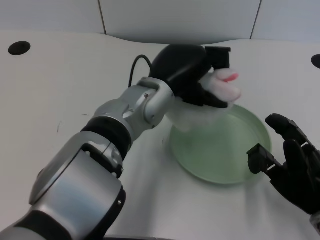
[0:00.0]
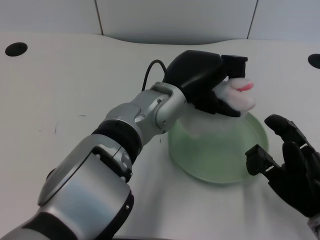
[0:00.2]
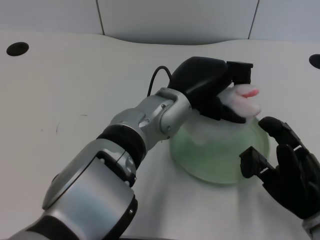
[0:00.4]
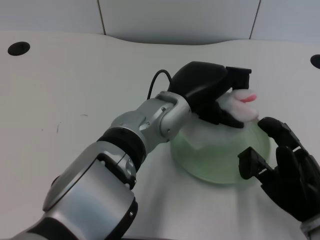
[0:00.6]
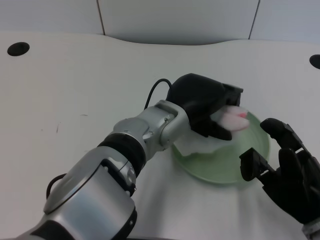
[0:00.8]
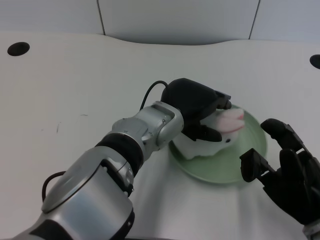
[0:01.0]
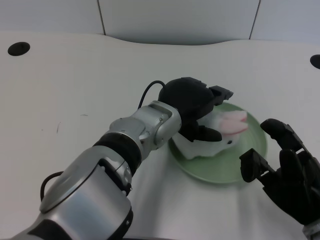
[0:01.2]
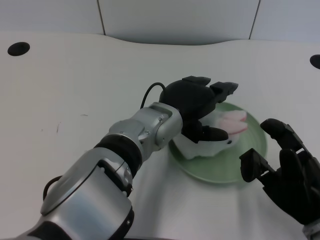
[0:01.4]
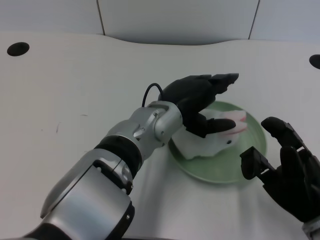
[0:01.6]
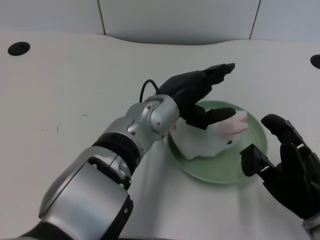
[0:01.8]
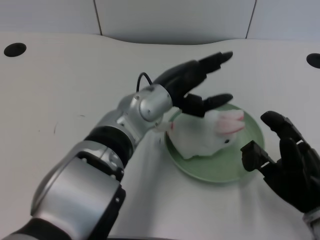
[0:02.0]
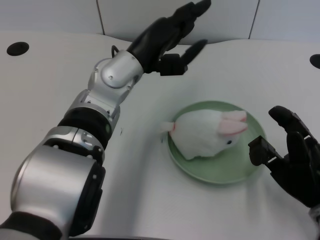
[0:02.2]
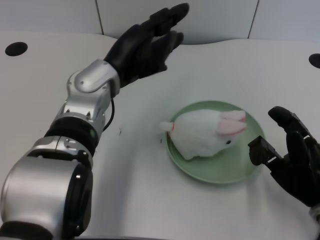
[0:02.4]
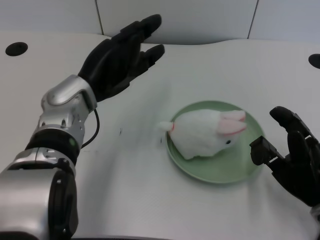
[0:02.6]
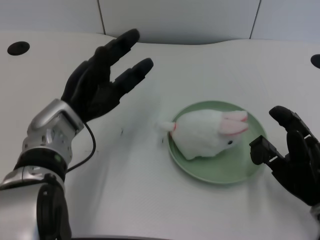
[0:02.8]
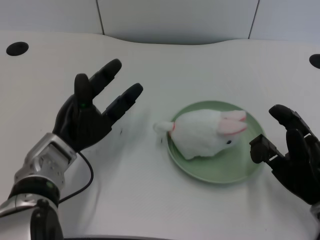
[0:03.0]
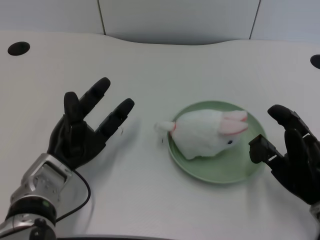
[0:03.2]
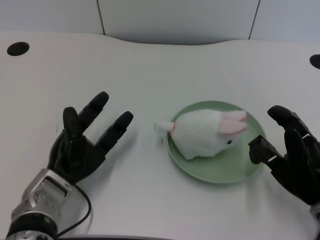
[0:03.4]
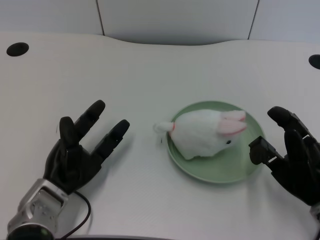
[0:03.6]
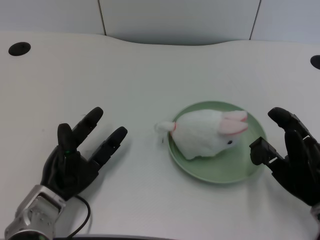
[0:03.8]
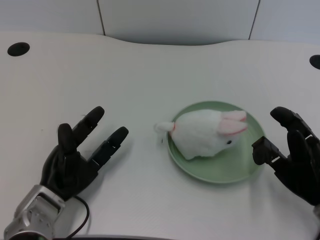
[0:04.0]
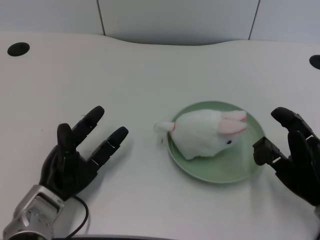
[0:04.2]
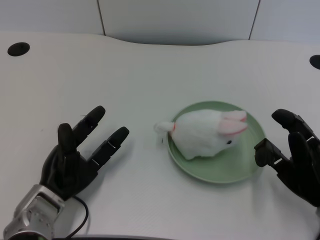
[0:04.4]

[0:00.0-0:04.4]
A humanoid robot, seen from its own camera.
Task of the whole recording: pick up the rabbit doll from the table and place it on the plate.
Step, 0:00.0 to 0:01.4: Place the rabbit doll into the plate with the left gripper.
0:01.4 to 0:03.0: The left hand heads to the left, covering approximately 15 cm.
0:03.0 to 0:04.4: The left hand travels backward and downward by some 10 cm.

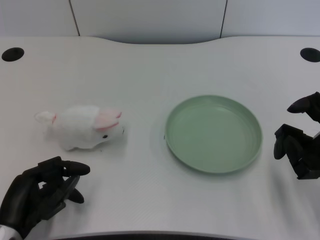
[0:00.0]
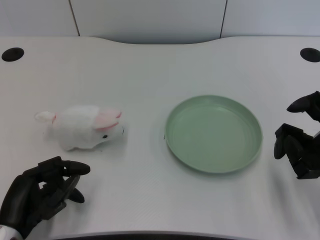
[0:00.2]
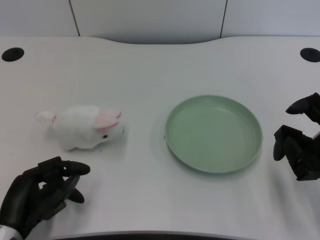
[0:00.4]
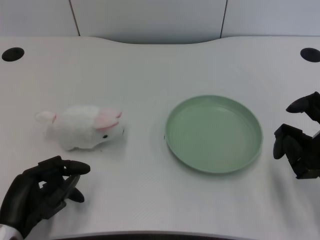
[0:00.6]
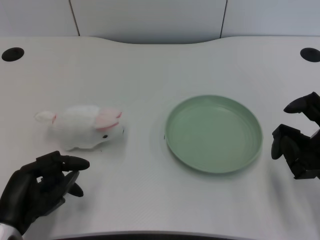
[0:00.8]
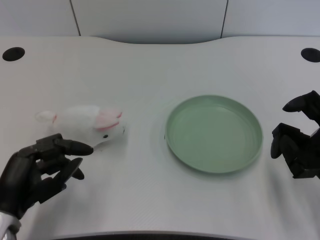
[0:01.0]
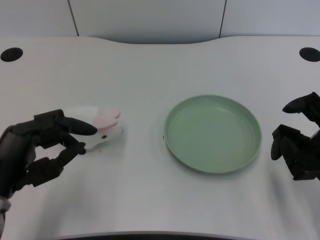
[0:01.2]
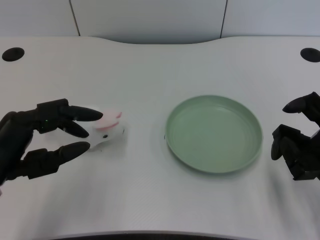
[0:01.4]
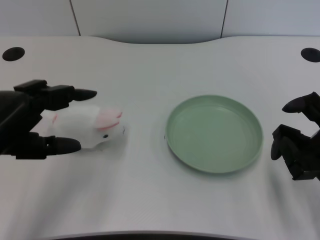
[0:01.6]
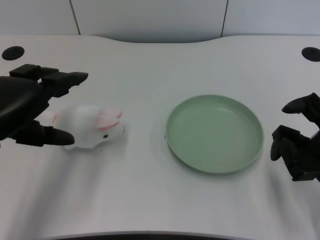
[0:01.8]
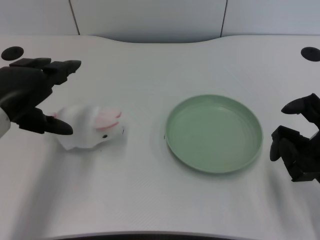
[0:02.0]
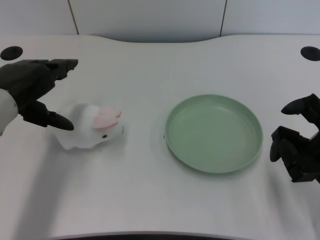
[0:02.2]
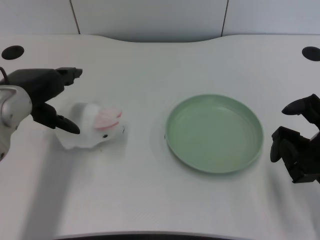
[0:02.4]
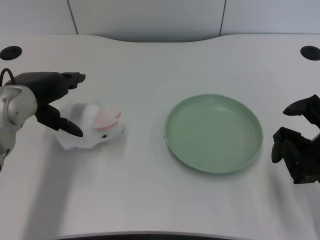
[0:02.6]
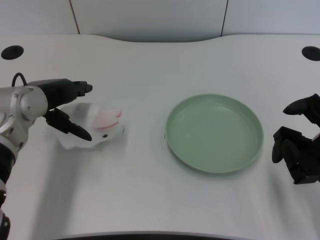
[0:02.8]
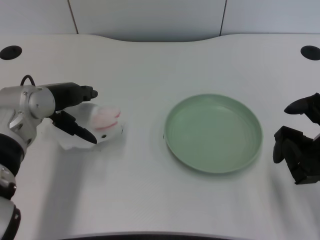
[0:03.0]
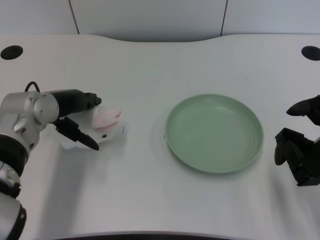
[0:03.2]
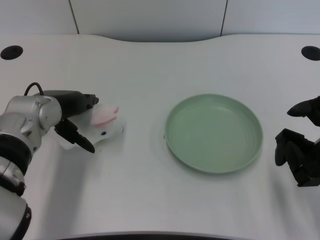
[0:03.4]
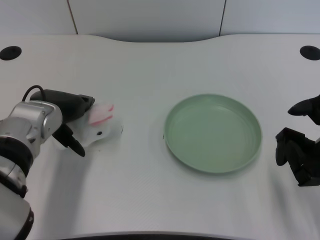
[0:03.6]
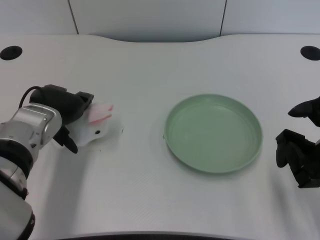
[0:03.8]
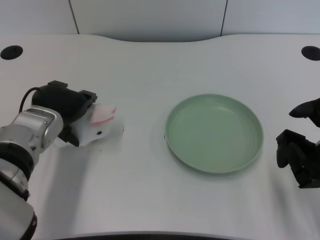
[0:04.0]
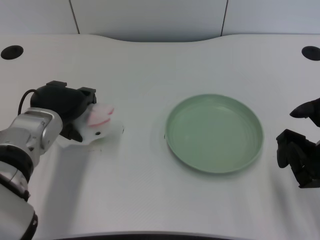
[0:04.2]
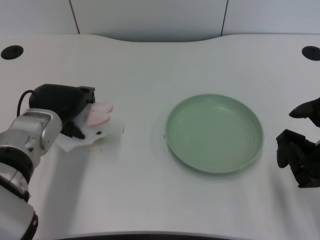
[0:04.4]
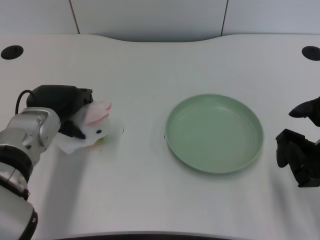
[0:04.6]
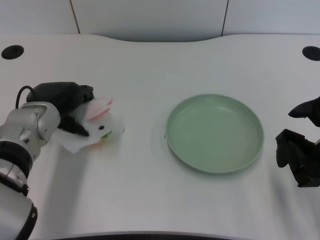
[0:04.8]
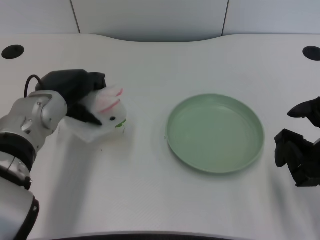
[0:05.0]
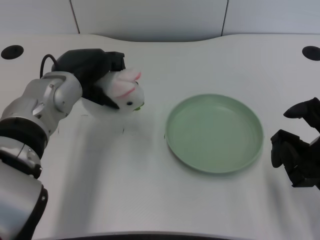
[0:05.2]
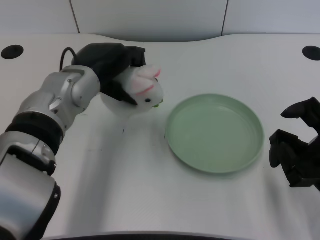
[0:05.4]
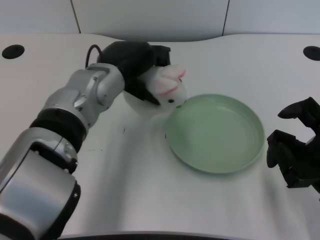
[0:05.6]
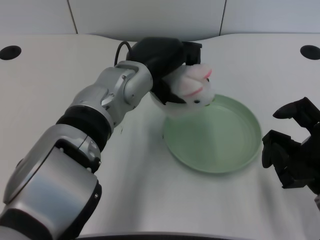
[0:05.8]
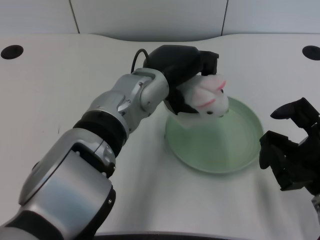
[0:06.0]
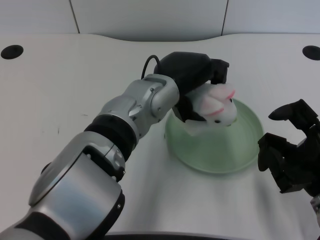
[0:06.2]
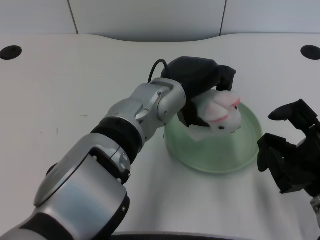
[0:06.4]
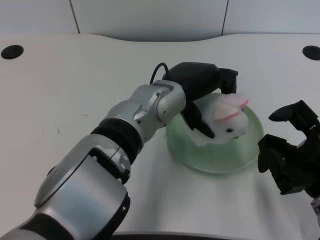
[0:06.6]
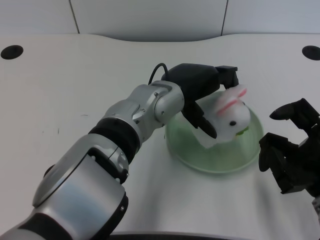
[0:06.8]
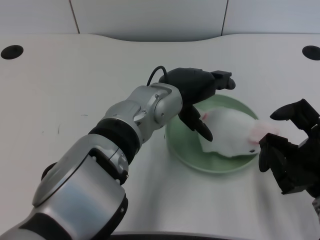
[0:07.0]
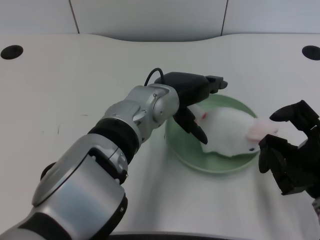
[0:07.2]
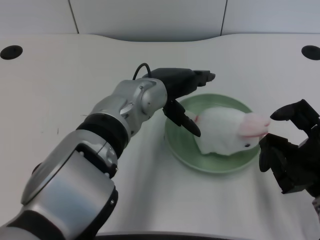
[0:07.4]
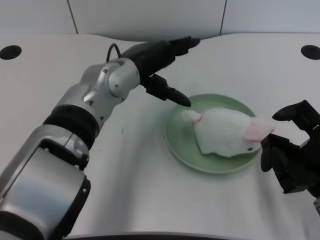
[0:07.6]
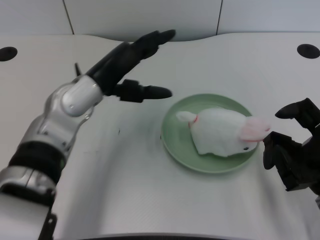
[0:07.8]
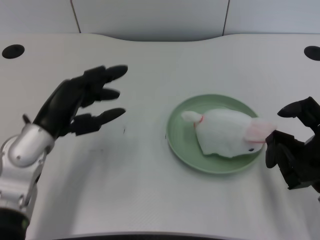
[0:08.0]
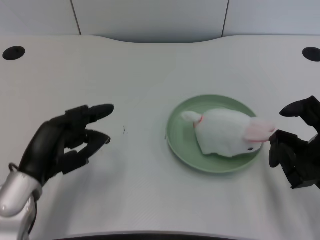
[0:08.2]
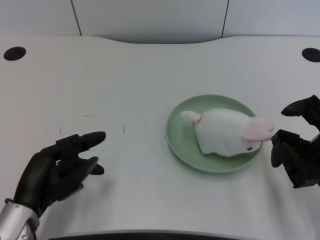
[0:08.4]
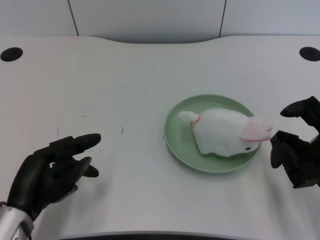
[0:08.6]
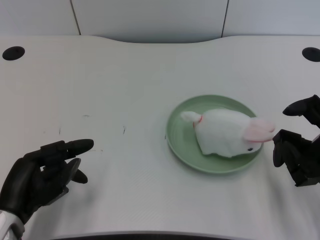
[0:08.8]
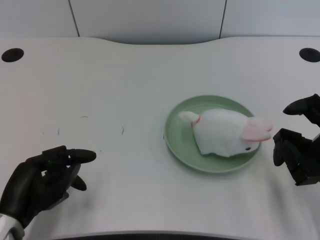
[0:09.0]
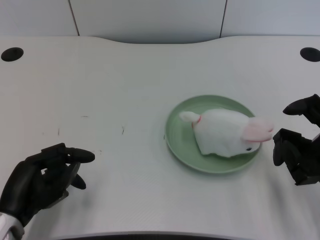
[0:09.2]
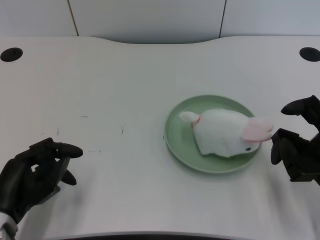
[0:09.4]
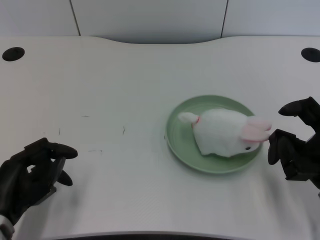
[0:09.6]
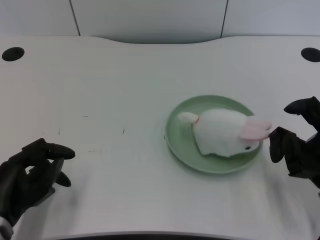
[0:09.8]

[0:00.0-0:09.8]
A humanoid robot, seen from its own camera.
Task of the whole recording: pick up the rabbit doll from the table and place it on the plate.
Step, 0:01.0 to 0:05.0: Grasp the rabbit doll with the left gripper.
Step, 0:05.2 to 0:07.0: Place the rabbit doll into the plate with the left gripper.
0:01.4 to 0:02.8: The left hand is displaced forward by some 15 cm.
0:02.8 to 0:04.2: The left hand moves downward, approximately 5 cm.
0:04.2 to 0:05.6: The left hand goes some 10 cm to the right and upward.
0:05.6 to 0:07.0: The left hand moves to the right, approximately 10 cm.
0:07.0 to 0:08.4: The left hand goes approximately 25 cm to the left, backward and downward.
0:08.4 to 0:09.8: The hands stay close to where they were, moving slightly.

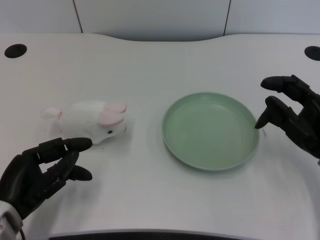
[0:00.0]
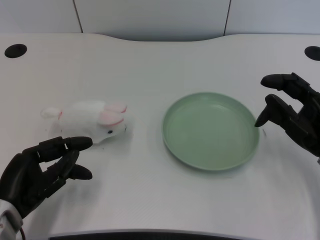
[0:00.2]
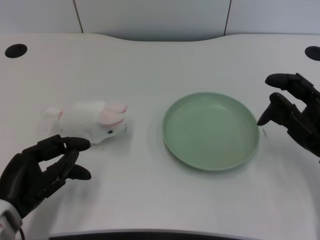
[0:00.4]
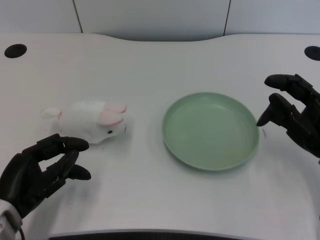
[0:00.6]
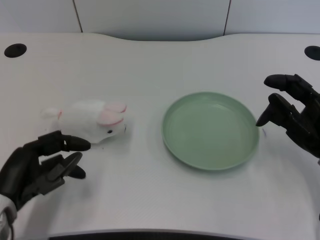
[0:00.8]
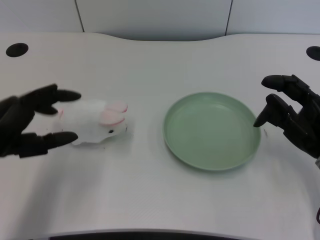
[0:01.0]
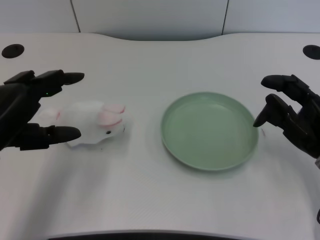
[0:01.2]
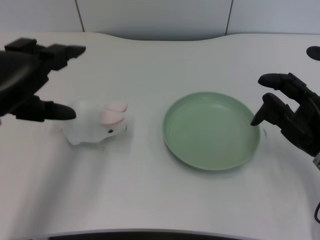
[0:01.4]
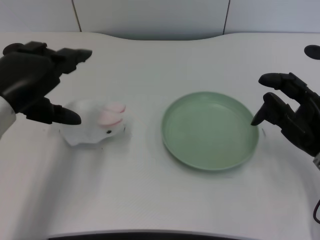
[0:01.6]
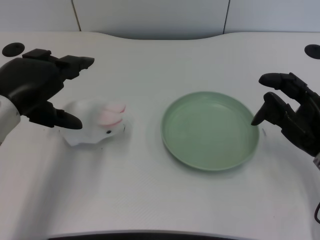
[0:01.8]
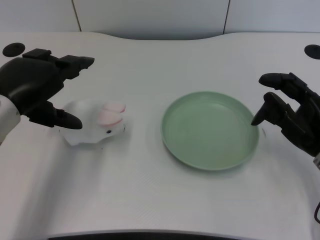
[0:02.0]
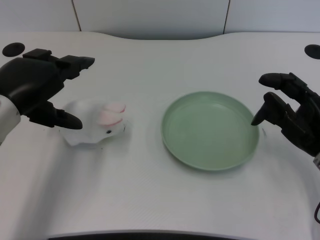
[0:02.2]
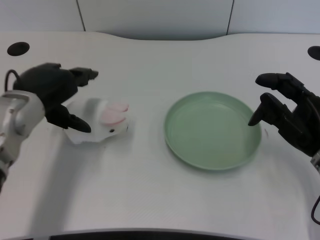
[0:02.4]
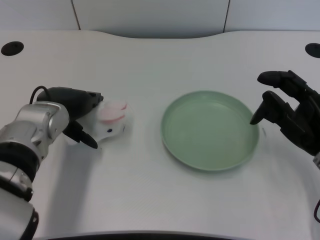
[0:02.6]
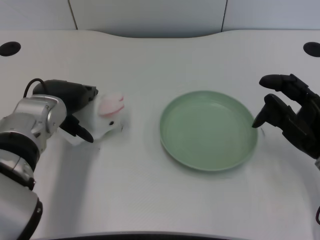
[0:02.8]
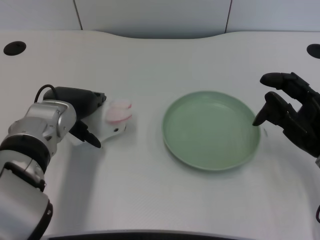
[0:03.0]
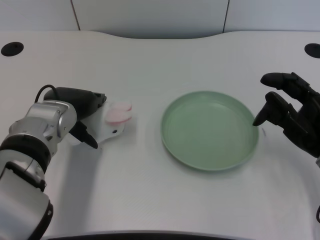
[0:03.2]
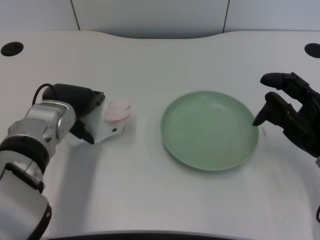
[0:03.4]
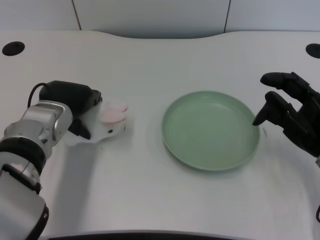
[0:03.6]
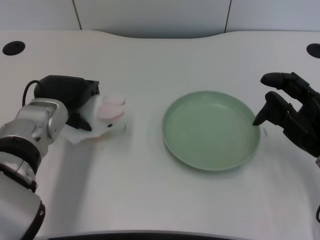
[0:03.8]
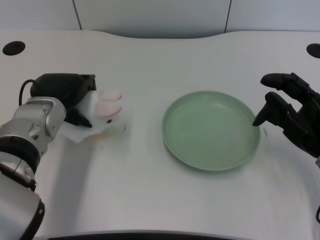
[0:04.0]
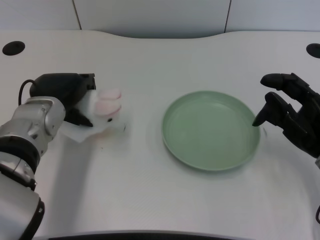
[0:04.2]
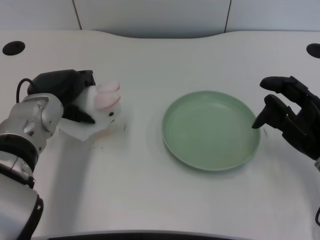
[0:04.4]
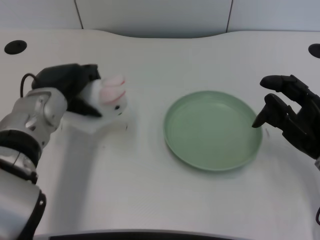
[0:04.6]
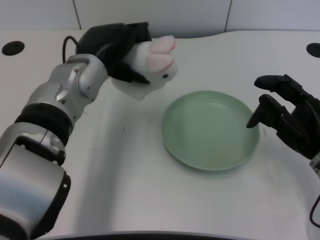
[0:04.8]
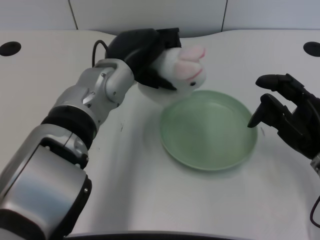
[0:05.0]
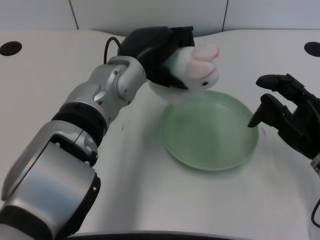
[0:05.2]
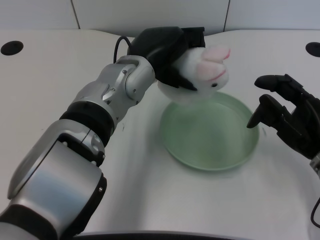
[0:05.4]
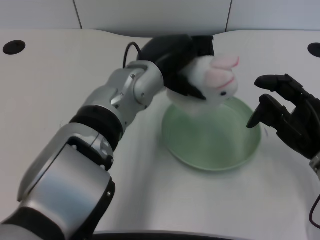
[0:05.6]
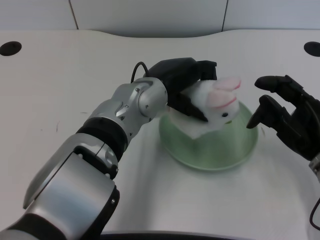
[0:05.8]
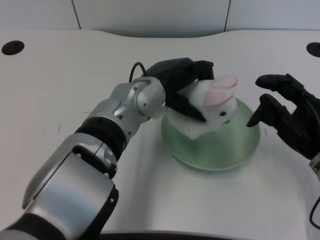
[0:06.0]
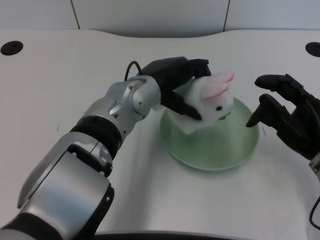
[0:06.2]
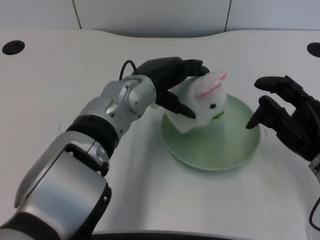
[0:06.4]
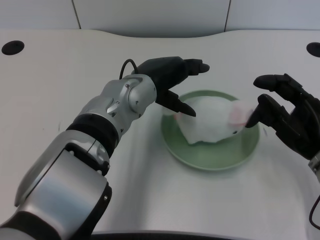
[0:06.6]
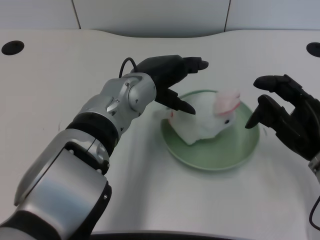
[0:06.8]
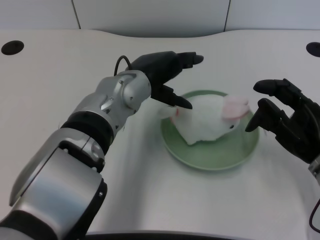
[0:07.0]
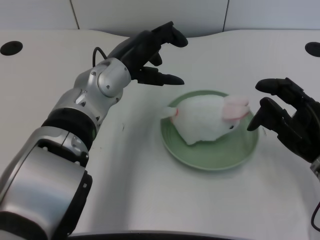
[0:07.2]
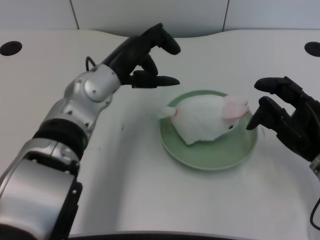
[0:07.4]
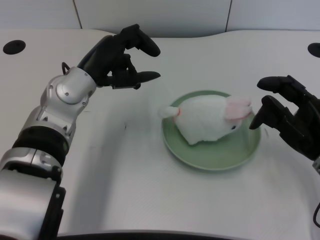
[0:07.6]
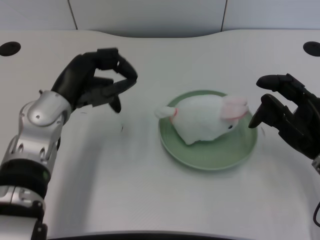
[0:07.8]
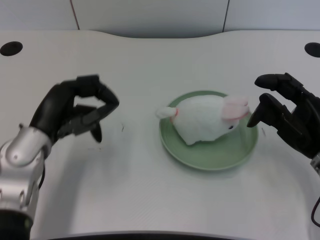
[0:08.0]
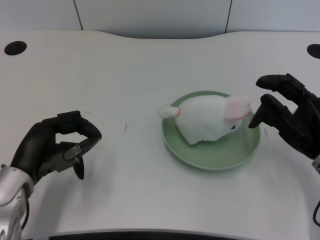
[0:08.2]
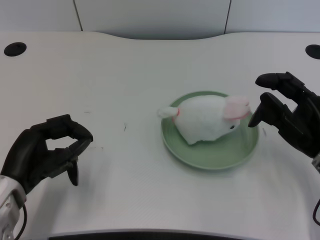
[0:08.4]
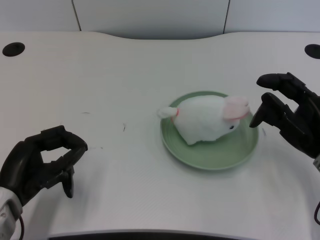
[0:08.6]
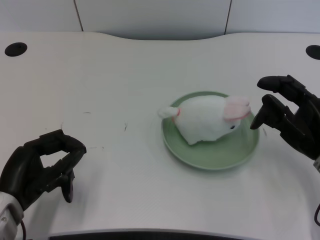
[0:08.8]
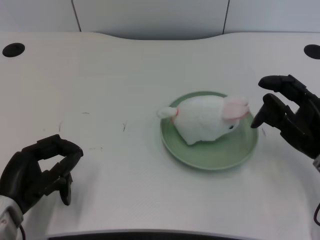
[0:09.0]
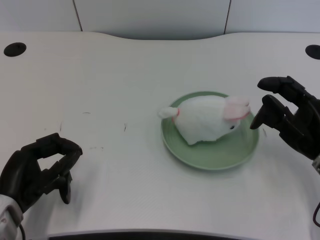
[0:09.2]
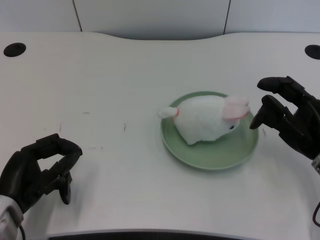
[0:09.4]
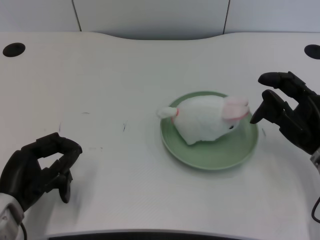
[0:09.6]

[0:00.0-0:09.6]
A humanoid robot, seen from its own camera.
Task of the whole recording: pick up the rabbit doll from the table and place it on the plate.
Step, 0:01.0 to 0:04.2: Grasp the rabbit doll with the left gripper.
Step, 0:04.4 to 0:06.4: Place the rabbit doll into the plate with the left gripper.
0:01.6 to 0:03.2: The left hand travels downward, to the right and forward by approximately 10 cm.
0:03.2 to 0:04.8: The left hand heads upward, covering approximately 5 cm.
0:04.8 to 0:06.4: The left hand shifts approximately 5 cm to the right.
0:06.4 to 0:08.0: The left hand shifts roughly 15 cm to the left.
0:08.0 to 0:09.6: The left hand heads backward and downward, covering some 10 cm.
